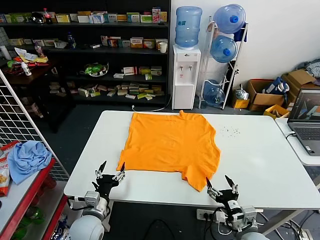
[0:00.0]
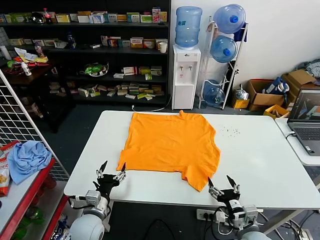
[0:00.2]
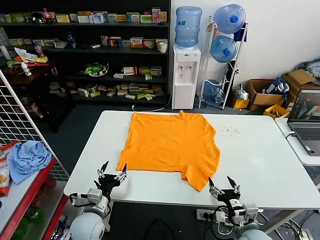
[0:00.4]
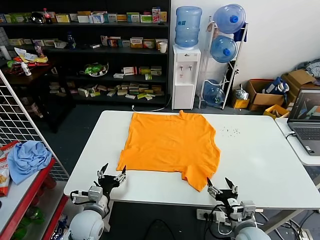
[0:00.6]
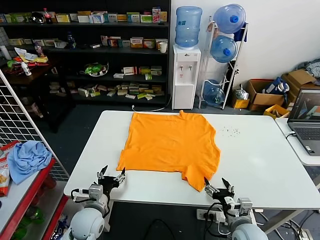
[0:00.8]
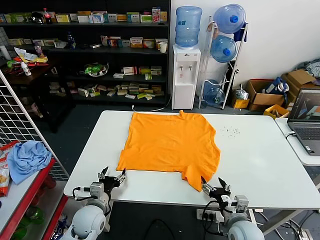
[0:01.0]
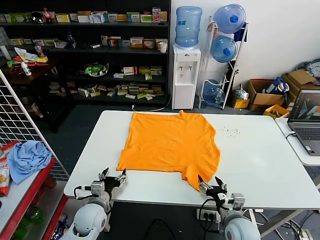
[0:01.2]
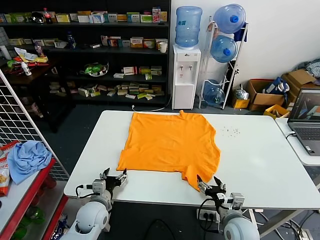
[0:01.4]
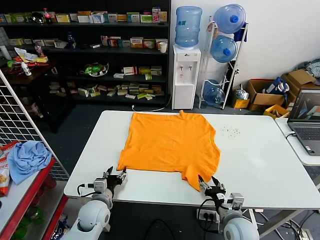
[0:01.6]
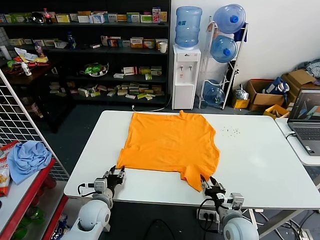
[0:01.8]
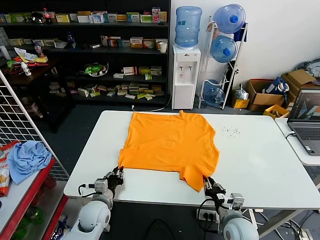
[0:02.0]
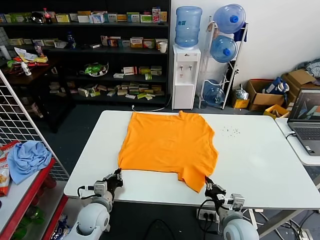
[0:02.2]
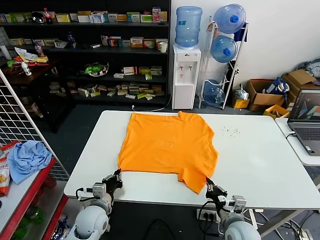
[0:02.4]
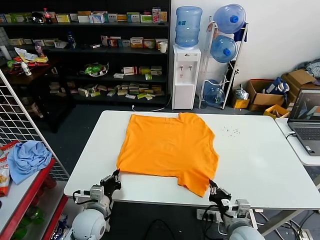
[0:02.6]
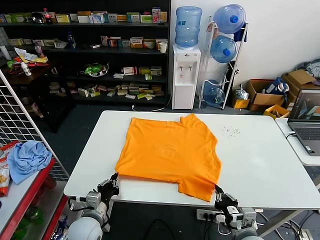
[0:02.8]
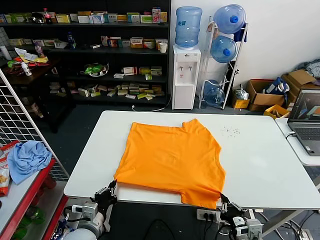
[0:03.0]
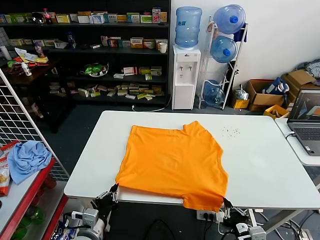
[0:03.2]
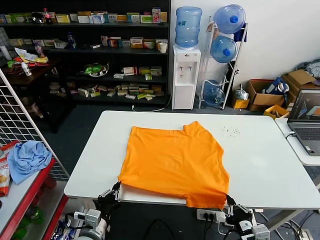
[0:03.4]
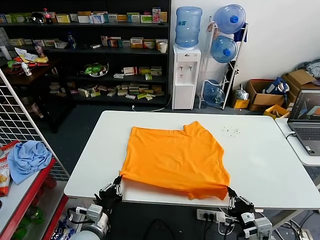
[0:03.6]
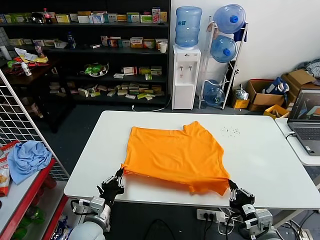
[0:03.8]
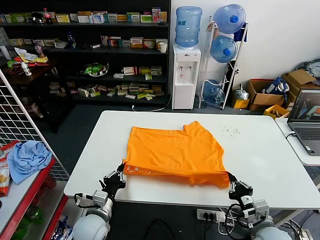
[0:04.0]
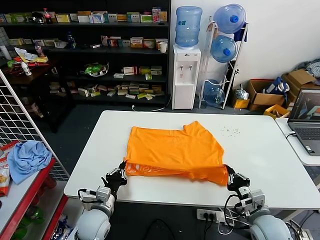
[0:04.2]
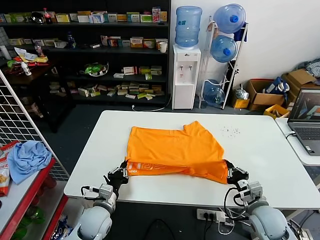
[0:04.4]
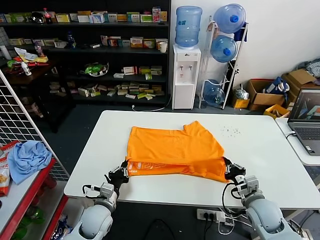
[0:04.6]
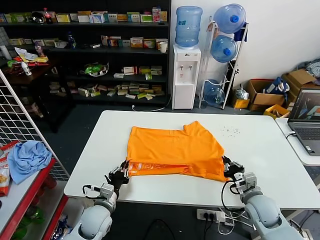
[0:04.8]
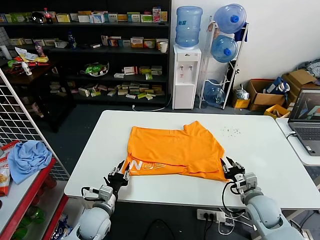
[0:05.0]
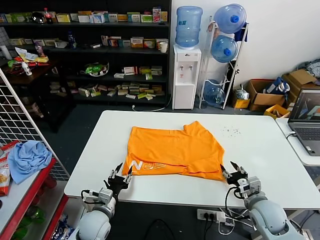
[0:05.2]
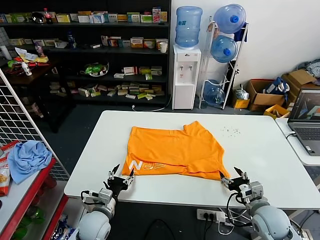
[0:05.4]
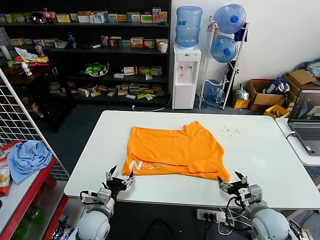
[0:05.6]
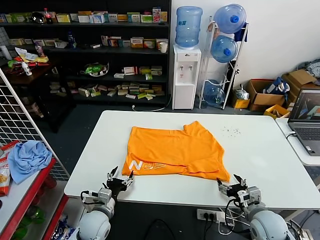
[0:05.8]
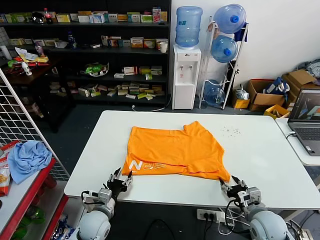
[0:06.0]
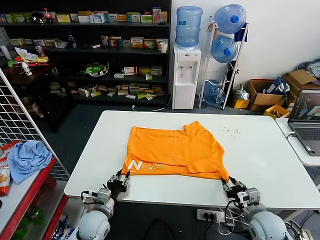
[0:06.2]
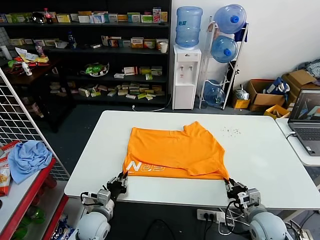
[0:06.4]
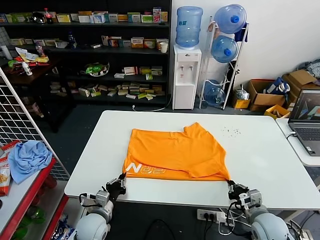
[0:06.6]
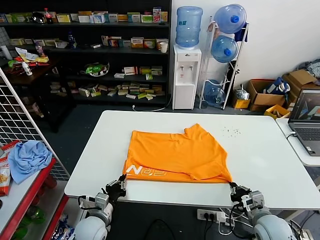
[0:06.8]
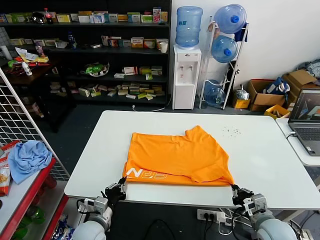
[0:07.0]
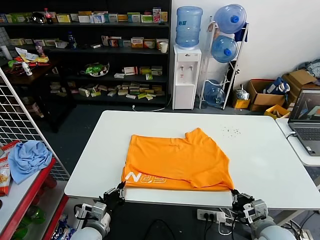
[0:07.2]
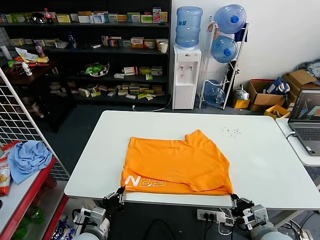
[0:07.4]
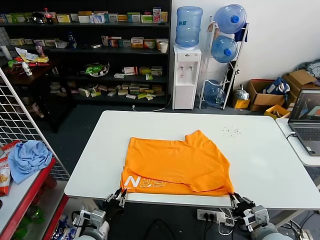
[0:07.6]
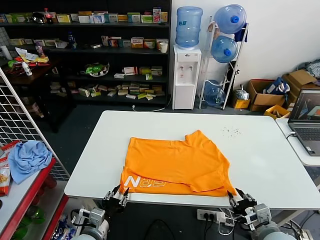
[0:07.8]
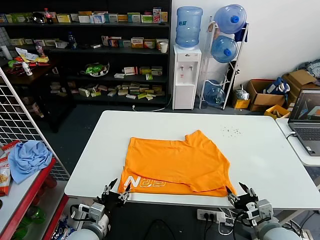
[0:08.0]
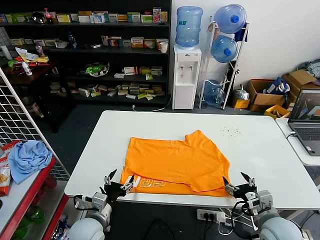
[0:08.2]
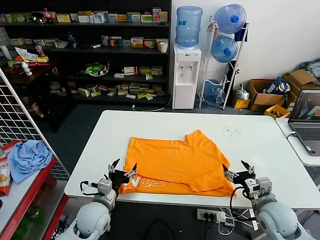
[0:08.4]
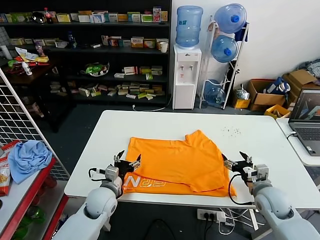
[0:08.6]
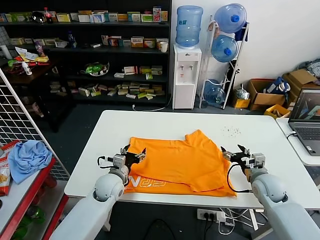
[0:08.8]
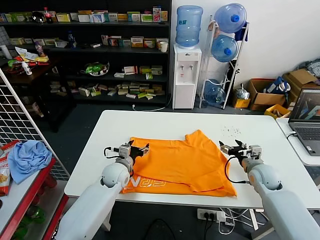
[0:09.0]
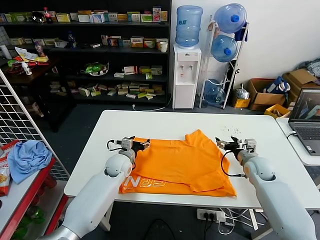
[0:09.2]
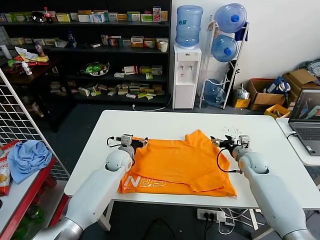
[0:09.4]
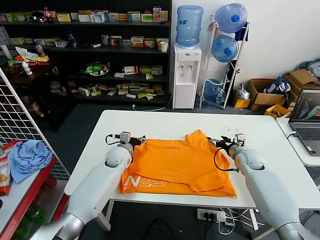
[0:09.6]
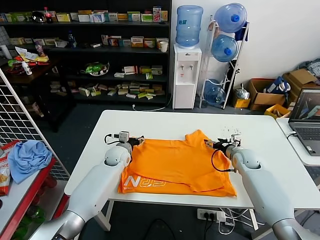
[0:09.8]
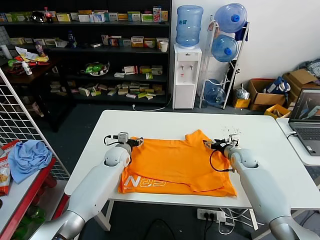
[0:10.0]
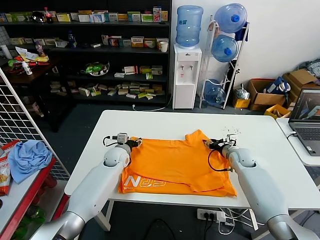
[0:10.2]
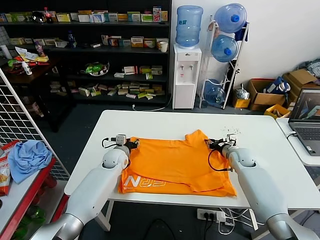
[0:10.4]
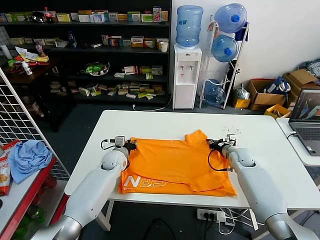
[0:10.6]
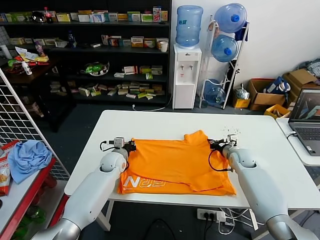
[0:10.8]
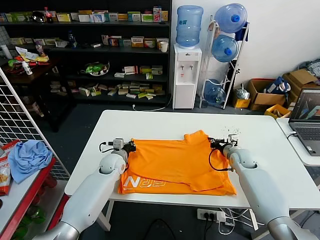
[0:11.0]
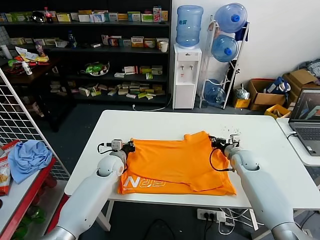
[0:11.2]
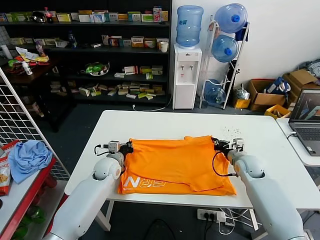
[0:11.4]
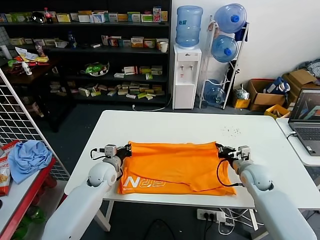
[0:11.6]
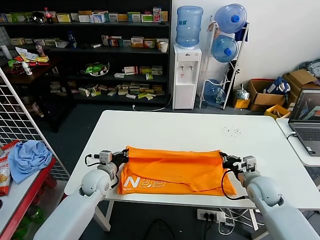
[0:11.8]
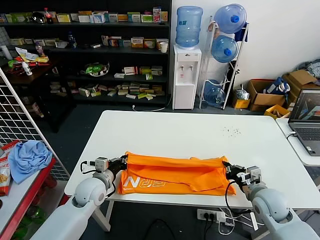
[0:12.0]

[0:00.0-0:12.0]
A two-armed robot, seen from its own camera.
Task of the whole recording: fold and organize the clothes.
Step, 0:00.0 to 0:02.4: use both grippers simultaneously to clamp the lower edge of the clothing fabric.
Step, 0:02.6 to 0:05.0: use both grippers to drag the lower edge of the fabric forward and fold it over the upper edge.
Step, 0:05.2 to 0:07.8: Drag the clothes downward with both gripper.
Step, 0:08.0 to 0:11.0: use both grippers simultaneously to clamp the upper edge of the clothing fabric.
0:01.6 to 0:03.0: Both grippers travel together backward, approximately 10 cm. The right gripper closes; the left gripper closes up.
0:03.0 to 0:04.4: The right gripper goes about 15 cm forward and to the right. The left gripper shifts about 5 cm forward.
0:04.4 to 0:06.0: The right gripper opens, while the left gripper opens up.
0:06.0 to 0:07.6: Both grippers travel together backward, about 10 cm. The left gripper closes up. The right gripper closes.
0:07.6 to 0:09.0: Both grippers travel together forward, about 25 cm. The right gripper opens. Meanwhile the left gripper opens.
0:09.0 to 0:10.4: Both grippers travel together forward, some 10 cm. The right gripper closes up. Meanwhile the left gripper closes its fingers.
0:10.4 to 0:12.0: Both grippers move backward, some 15 cm. The left gripper closes its fingers.

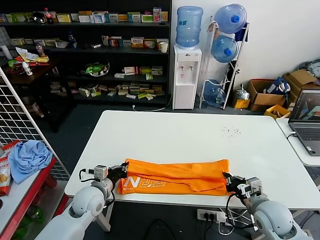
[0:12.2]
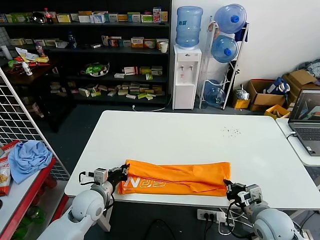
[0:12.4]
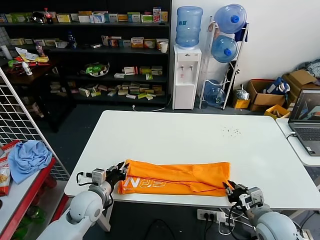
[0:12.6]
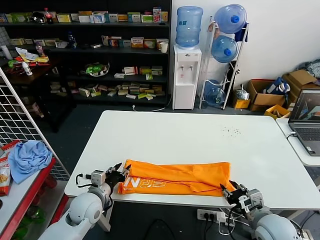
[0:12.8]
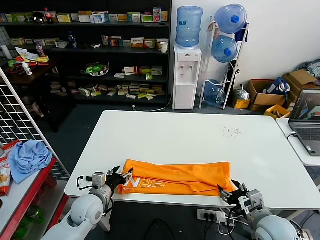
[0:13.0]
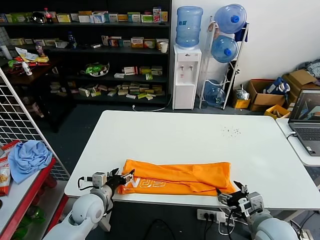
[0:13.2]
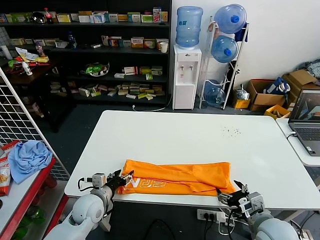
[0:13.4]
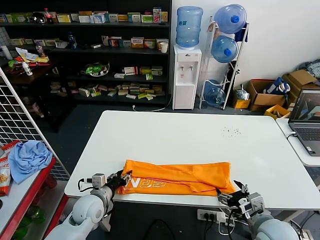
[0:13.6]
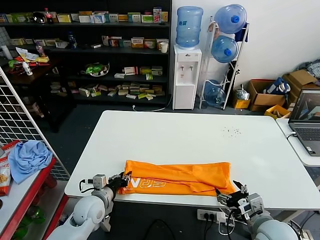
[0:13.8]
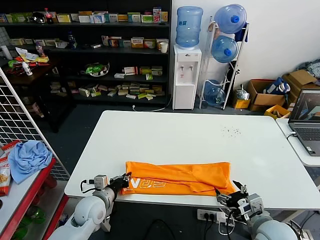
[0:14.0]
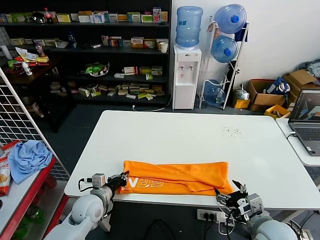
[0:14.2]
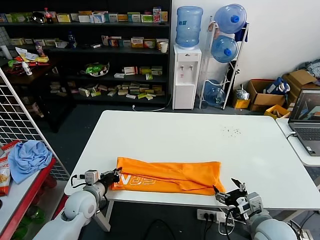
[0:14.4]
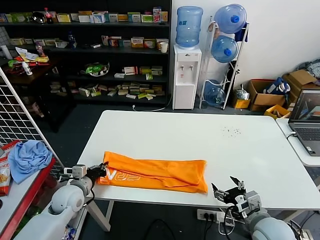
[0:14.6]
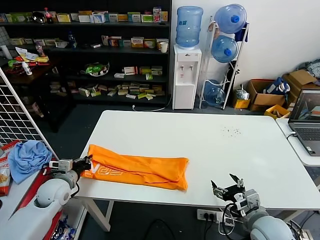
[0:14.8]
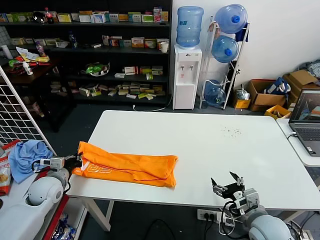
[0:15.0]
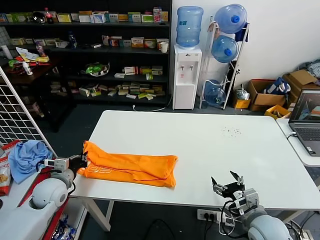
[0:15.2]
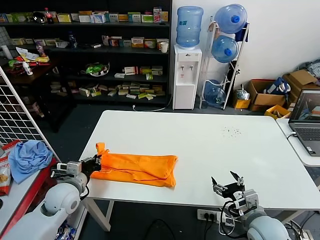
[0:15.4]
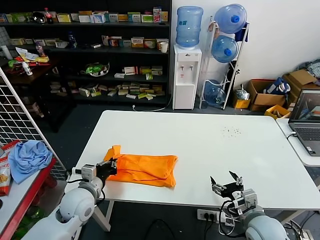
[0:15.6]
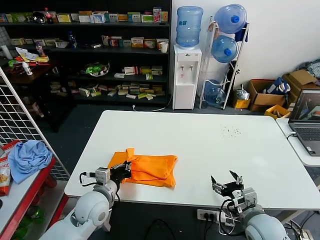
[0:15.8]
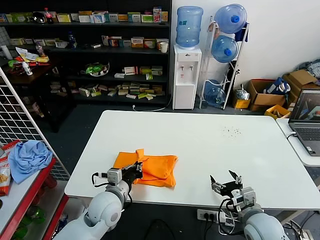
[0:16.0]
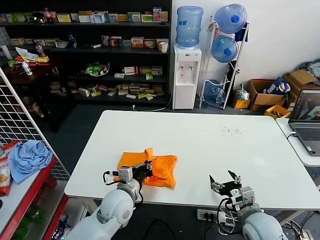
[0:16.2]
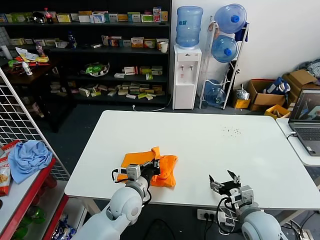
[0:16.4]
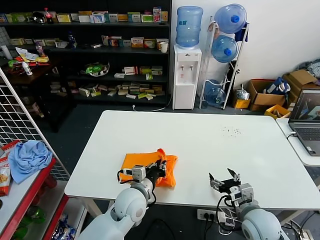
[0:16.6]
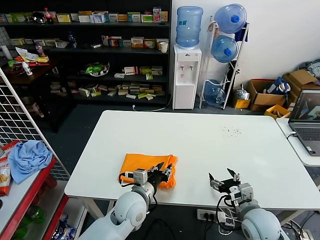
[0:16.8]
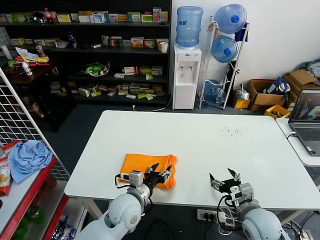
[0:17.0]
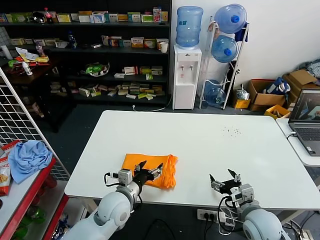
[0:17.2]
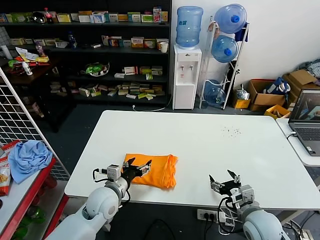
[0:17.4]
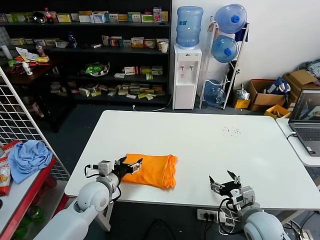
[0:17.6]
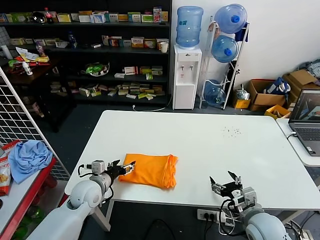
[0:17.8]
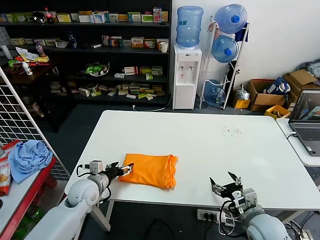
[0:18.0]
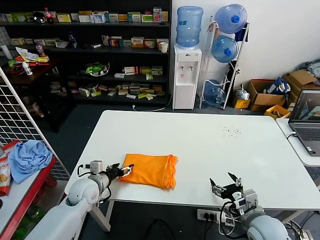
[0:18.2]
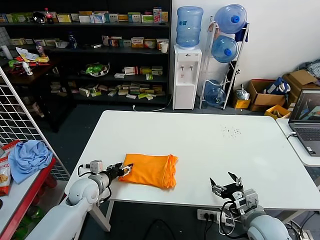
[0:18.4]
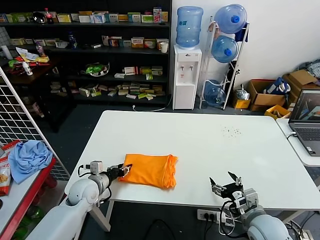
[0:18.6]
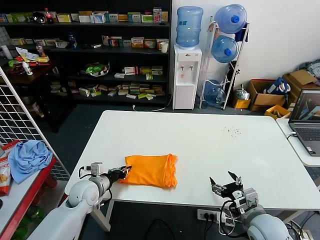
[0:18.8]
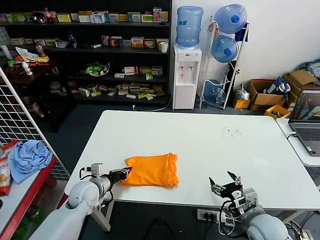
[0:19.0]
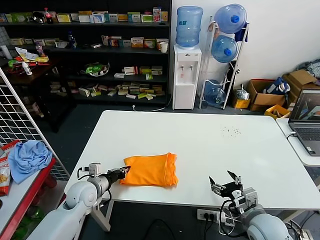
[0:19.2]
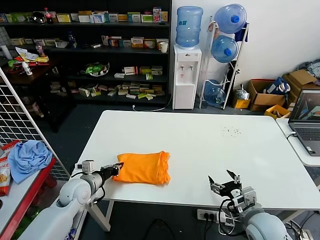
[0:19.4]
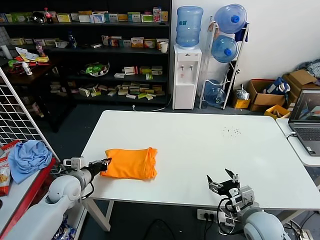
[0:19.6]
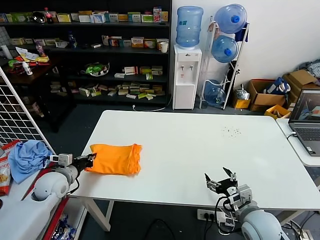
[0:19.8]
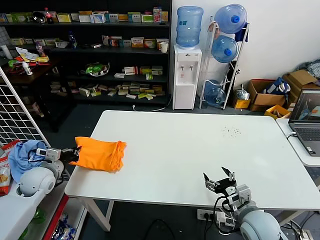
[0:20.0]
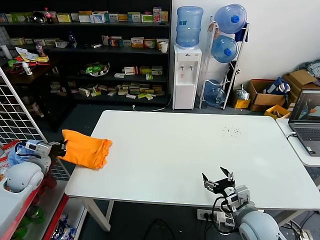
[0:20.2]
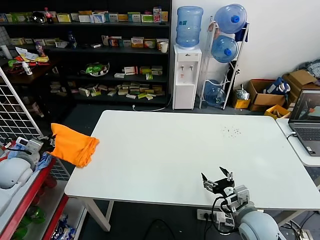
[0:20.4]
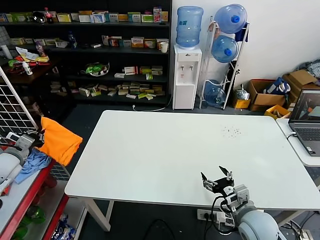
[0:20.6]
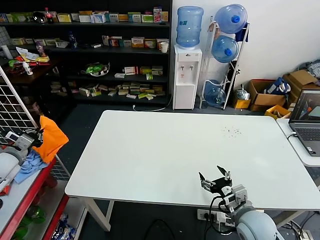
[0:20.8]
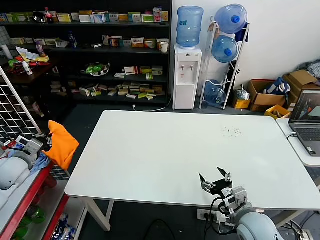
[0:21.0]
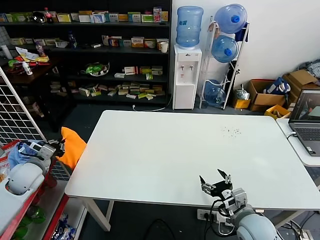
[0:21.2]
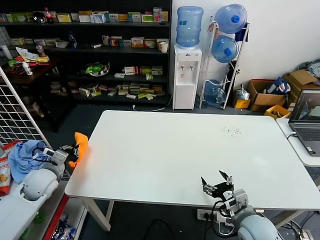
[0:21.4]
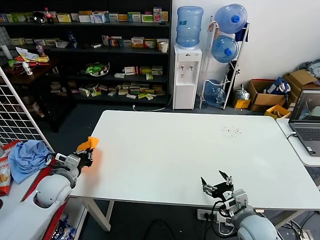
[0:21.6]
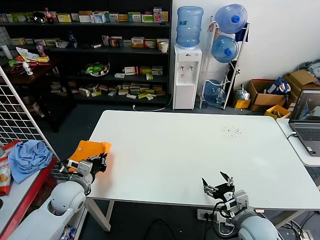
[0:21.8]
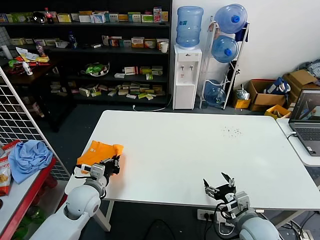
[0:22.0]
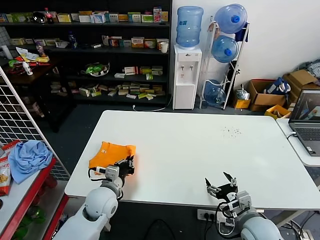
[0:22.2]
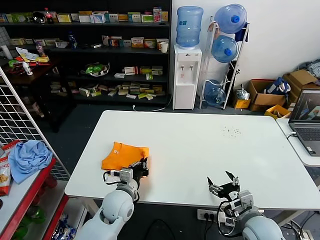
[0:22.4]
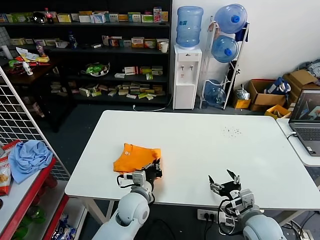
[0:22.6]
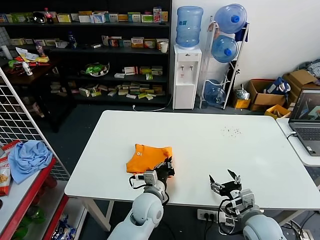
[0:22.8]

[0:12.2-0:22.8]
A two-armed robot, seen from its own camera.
Task of the whole recording: fold and organize the clothes.
Step, 0:12.8 to 0:13.8: use the left gripper to clamp the left edge of the fabric.
Step, 0:14.0 to 0:16.8: use the left gripper to drag the left edge of the fabric to the left and folds it over the right edge.
0:12.2 to 0:13.8: The left gripper opens its fingers; the right gripper heads backward, covering some 5 cm, and opens its fingers.
0:13.8 to 0:15.2: The left gripper shifts approximately 15 cm to the left and upward.
0:15.2 to 0:16.8: The left gripper is displaced to the right by about 30 cm, and opens.
0:16.8 to 0:18.2: The left gripper shifts roughly 20 cm to the left, and opens.
0:18.2 to 0:19.8: The left gripper travels to the left by approximately 10 cm, and closes.
0:19.8 to 0:21.2: The left gripper heads to the left and upward, covering about 10 cm.
0:21.2 to 0:22.8: The left gripper is displaced to the right by approximately 40 cm.
